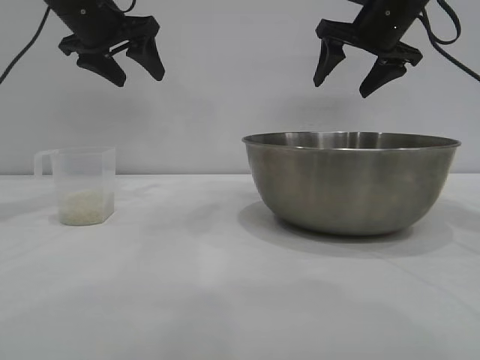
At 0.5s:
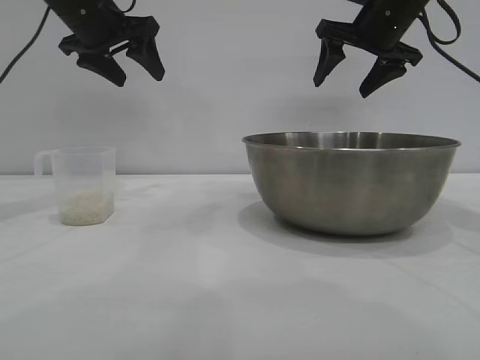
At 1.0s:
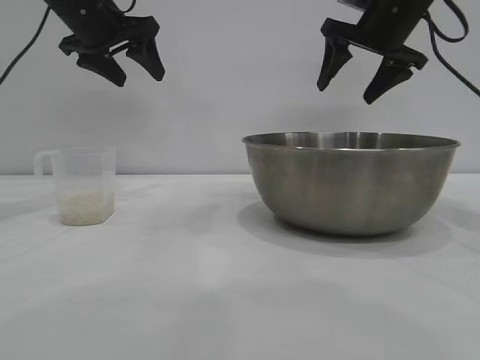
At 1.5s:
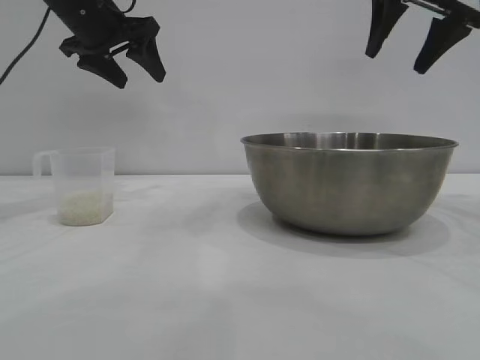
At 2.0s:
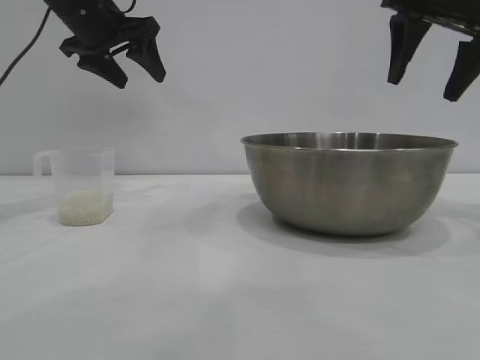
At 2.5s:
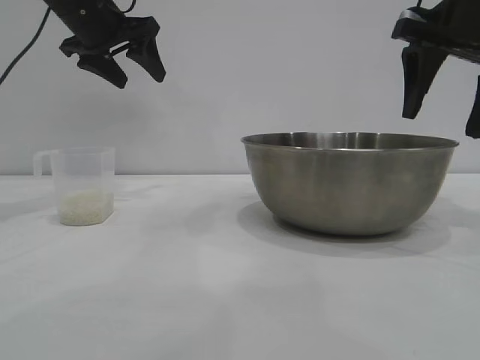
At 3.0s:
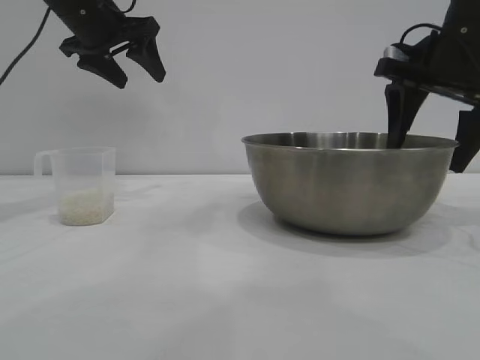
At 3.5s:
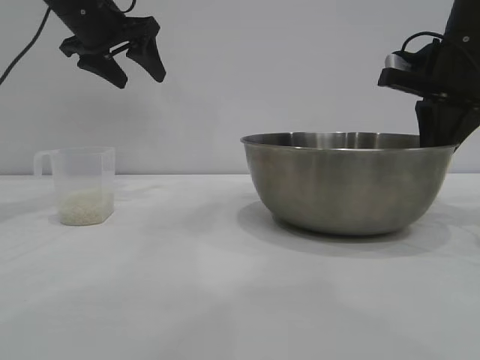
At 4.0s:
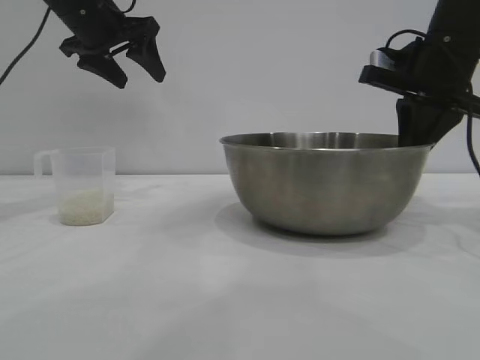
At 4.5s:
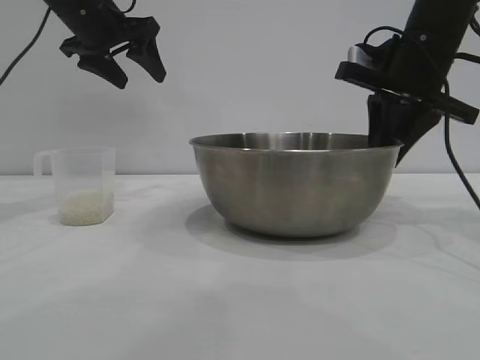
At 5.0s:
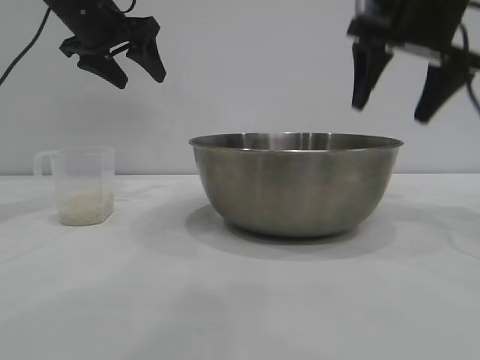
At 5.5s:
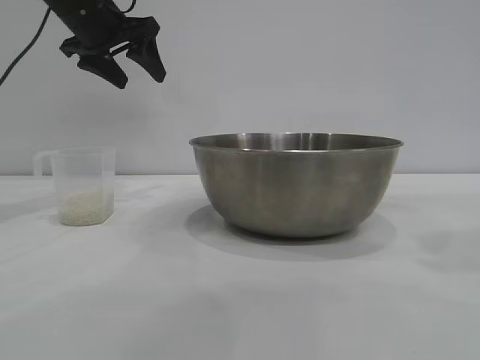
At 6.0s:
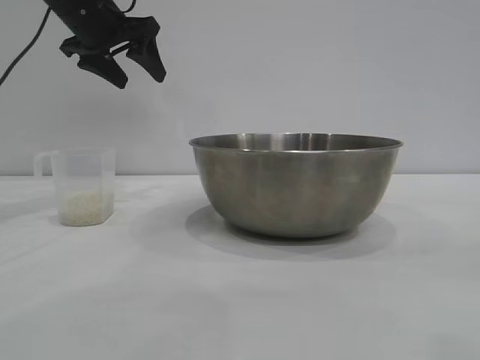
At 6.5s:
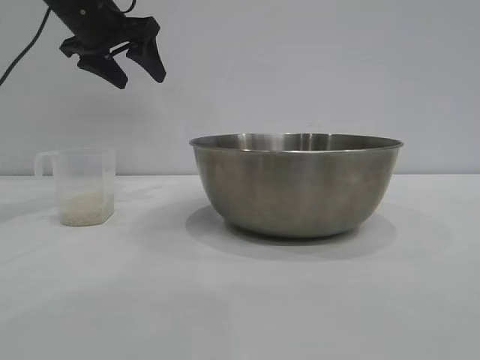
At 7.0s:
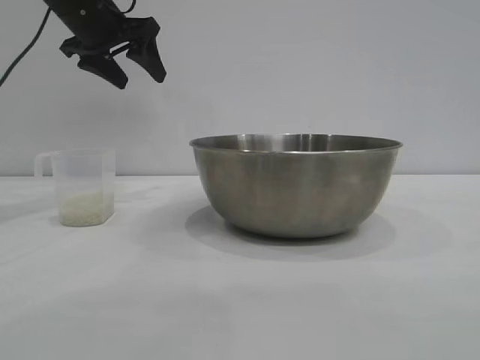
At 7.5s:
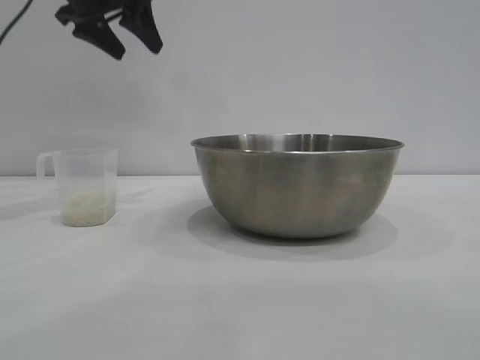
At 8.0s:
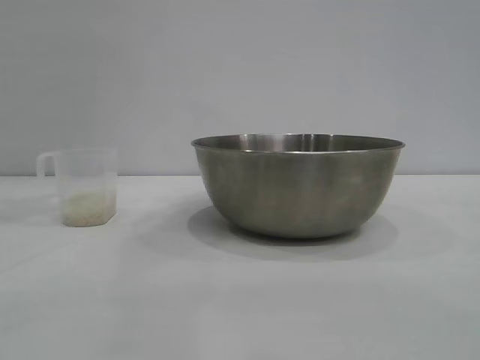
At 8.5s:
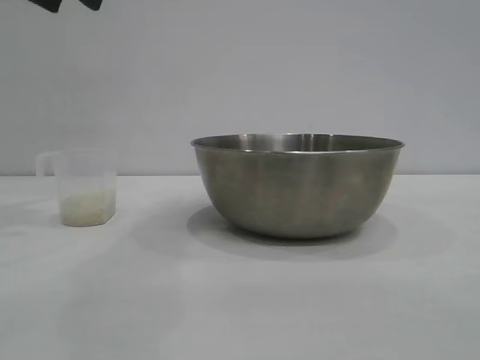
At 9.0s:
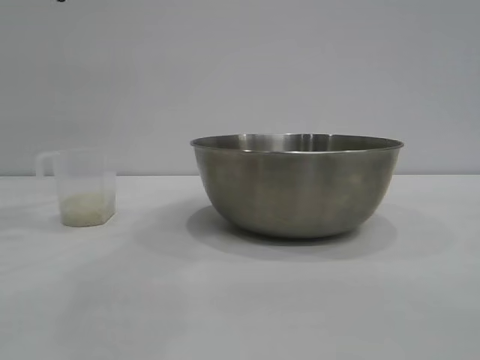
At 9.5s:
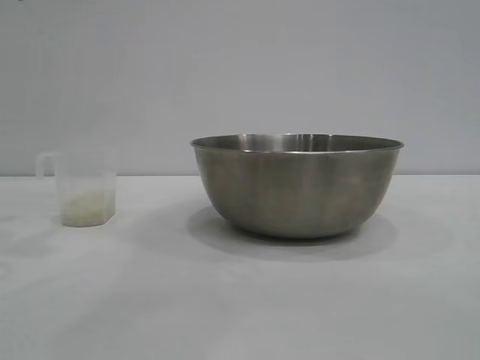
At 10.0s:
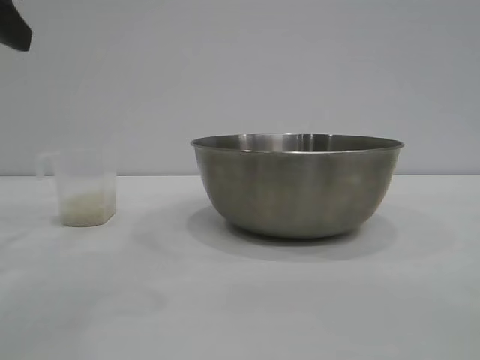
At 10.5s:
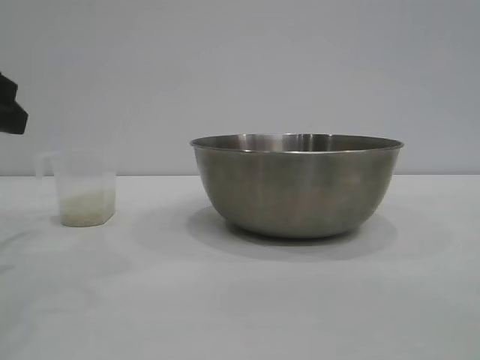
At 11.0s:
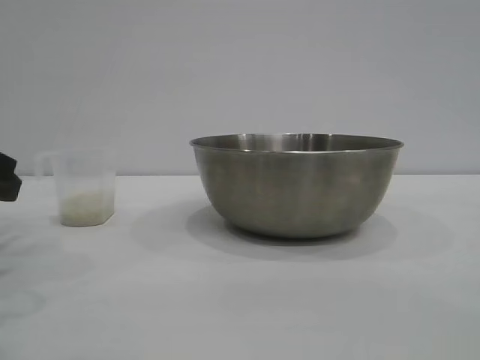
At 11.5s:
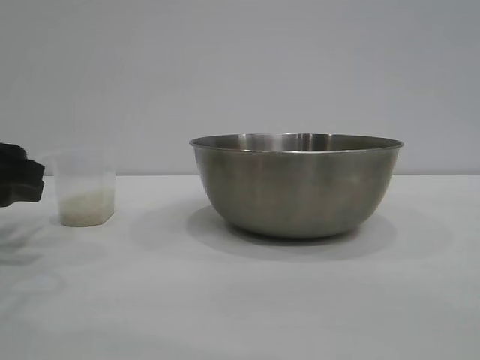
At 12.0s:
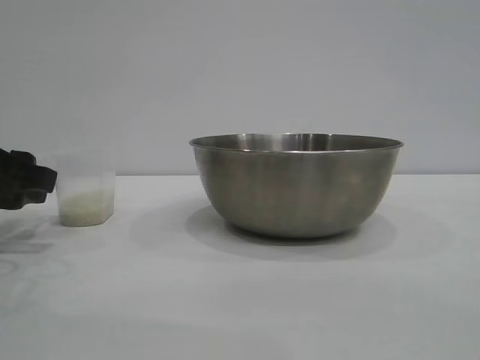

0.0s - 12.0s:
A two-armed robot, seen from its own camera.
Task of the whole recording: the right gripper grasp the rice container and place it in the center of the table, the left gripper grasp the rice scoop and pour the rice into the rice container.
Step, 0.0s - 5.0s: Move the bowl to the center of view with the right gripper.

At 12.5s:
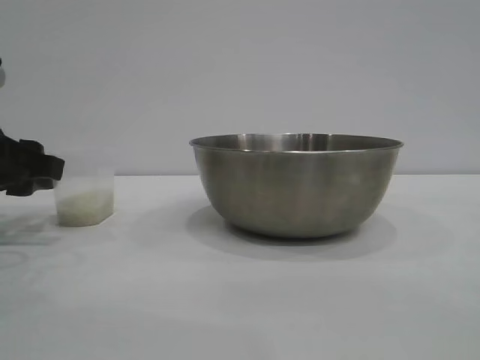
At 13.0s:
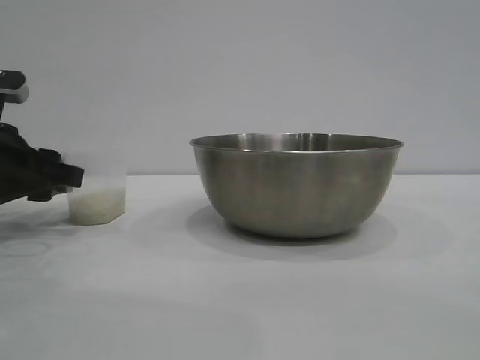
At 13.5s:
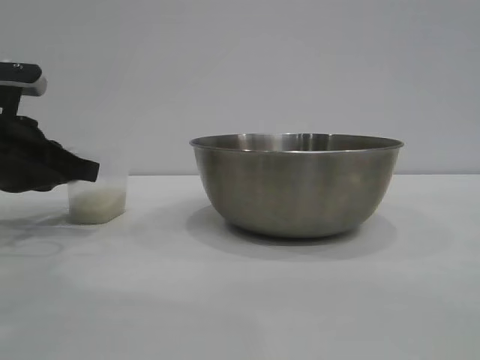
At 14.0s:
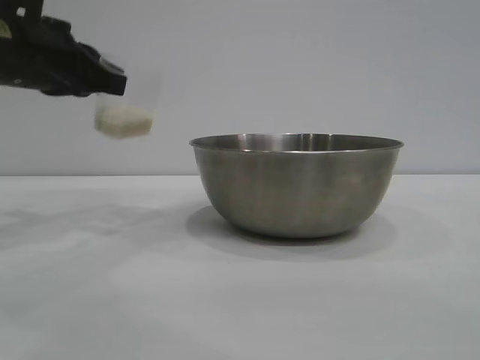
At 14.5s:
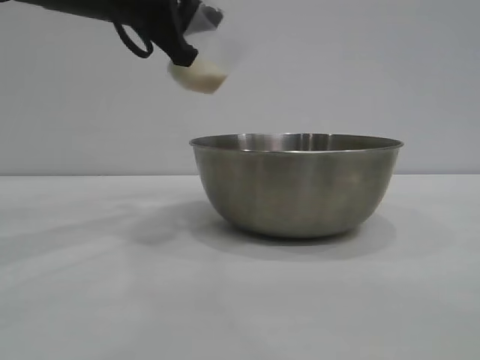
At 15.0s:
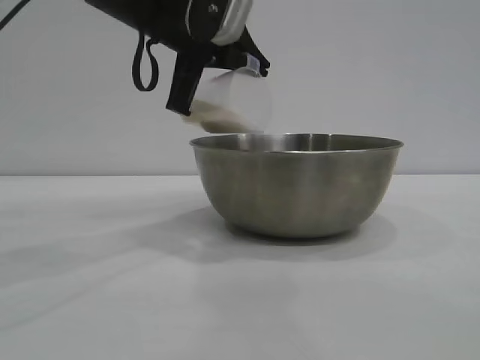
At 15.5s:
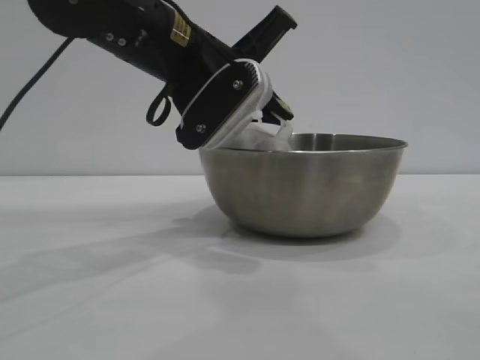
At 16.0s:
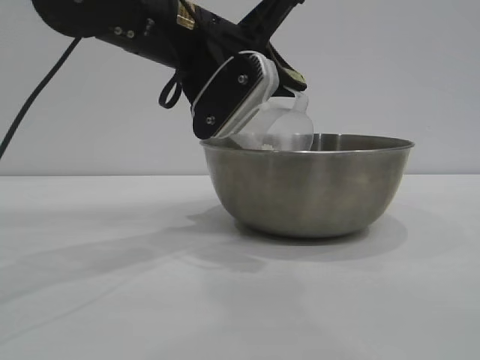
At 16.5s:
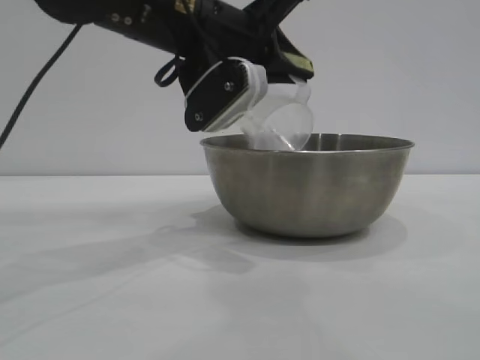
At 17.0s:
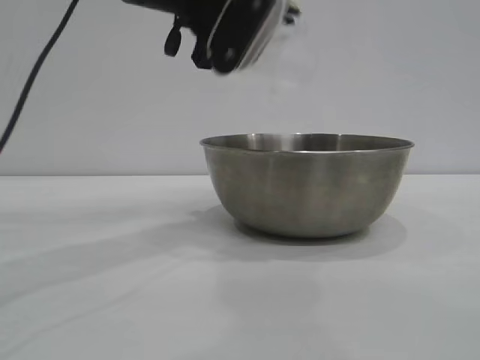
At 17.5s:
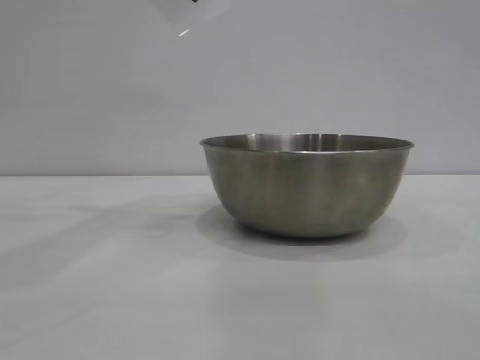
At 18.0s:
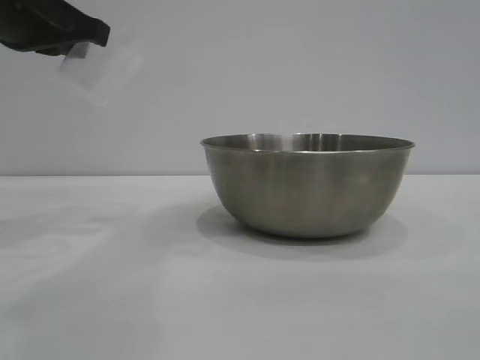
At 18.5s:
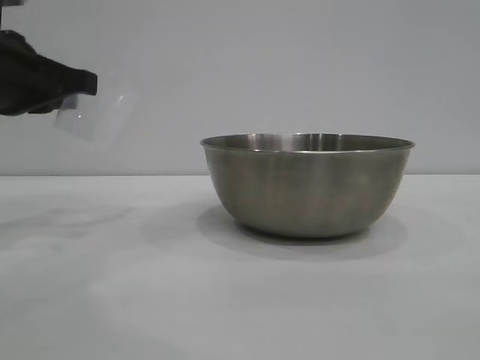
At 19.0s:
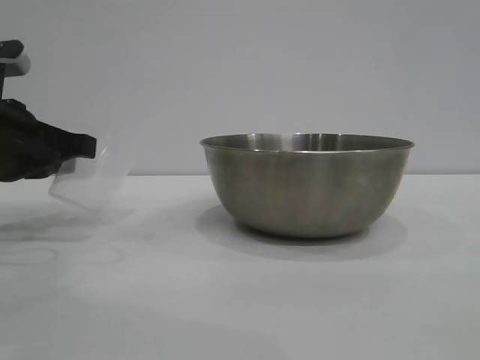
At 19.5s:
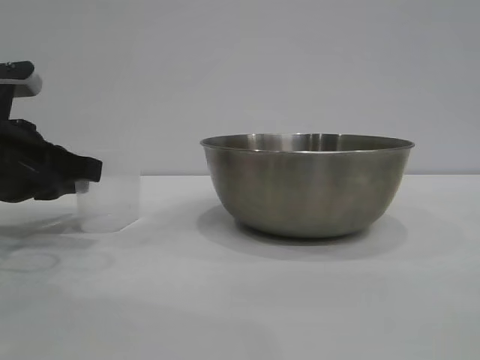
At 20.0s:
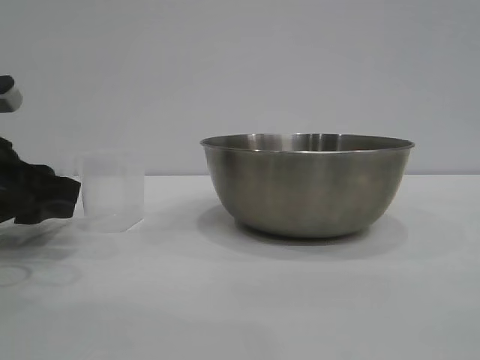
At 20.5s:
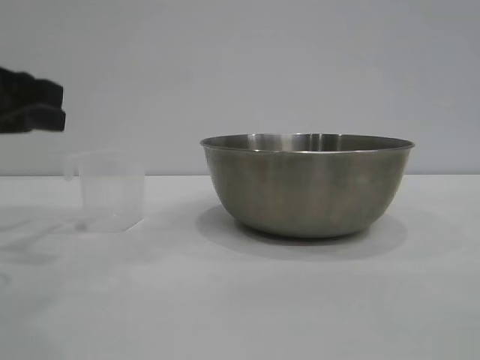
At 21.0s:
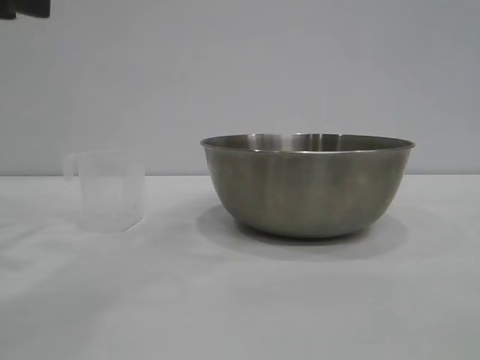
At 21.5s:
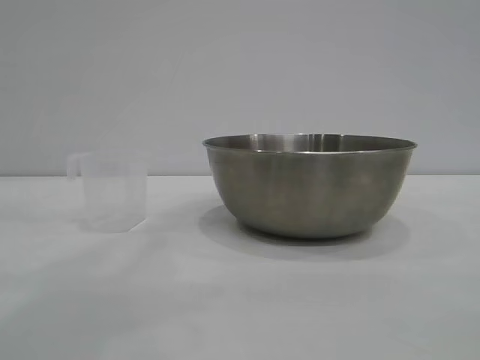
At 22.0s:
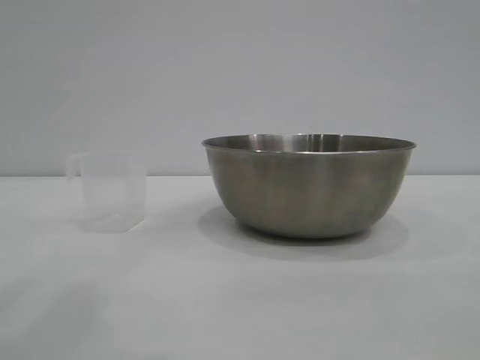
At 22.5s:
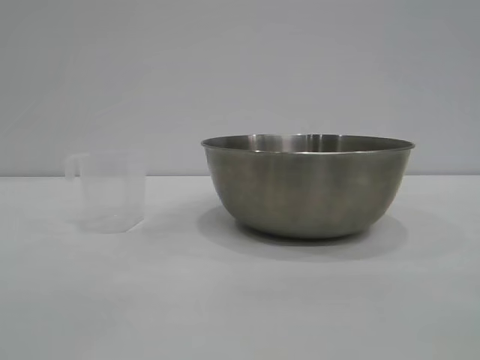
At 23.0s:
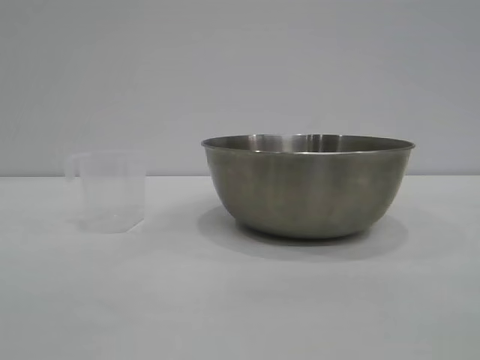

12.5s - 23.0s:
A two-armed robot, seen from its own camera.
Task of the whole recording: the right gripper grasp the rice container and place it in the center of the table, the left gripper grasp the rice scoop and pour the rice into the rice container.
Step, 14.0s - 17.0s: Pour the rice from the cup into the bowl with the left gripper.
Step, 17.5s - 20.5s: Place the cup on the table with the left gripper.

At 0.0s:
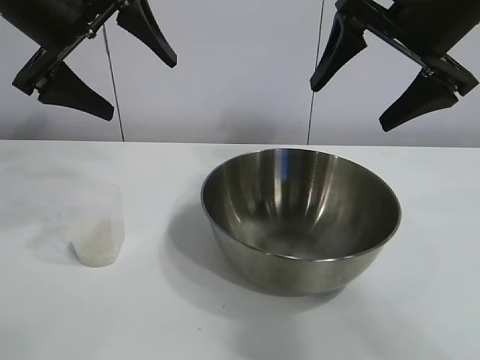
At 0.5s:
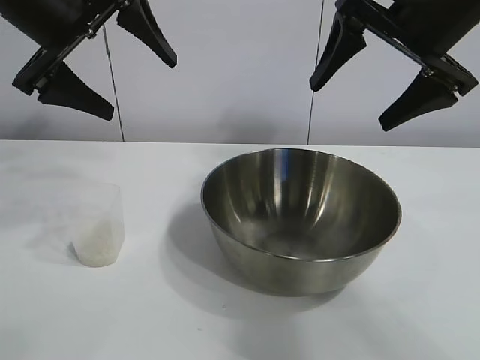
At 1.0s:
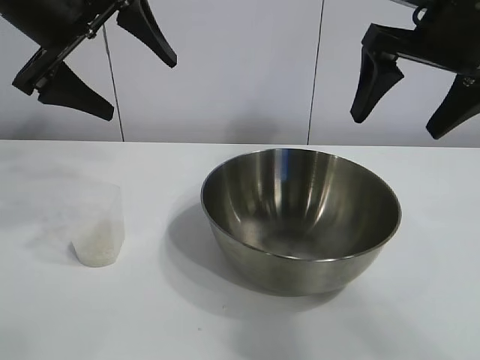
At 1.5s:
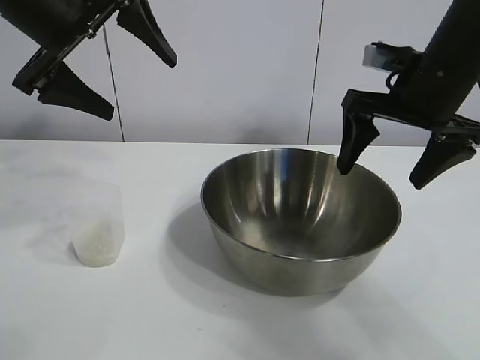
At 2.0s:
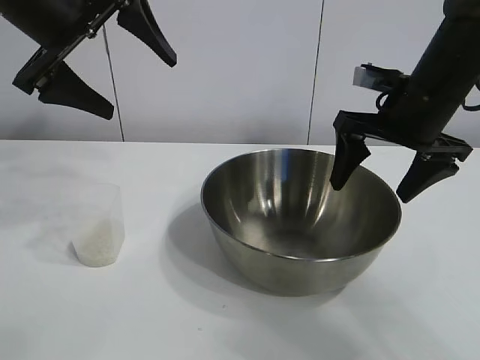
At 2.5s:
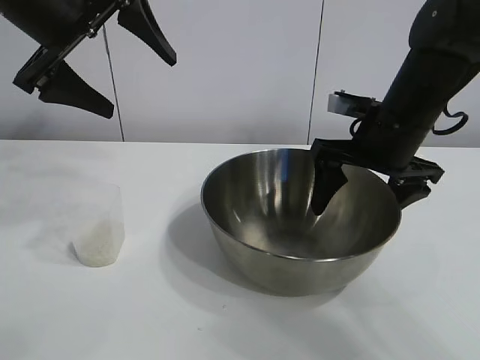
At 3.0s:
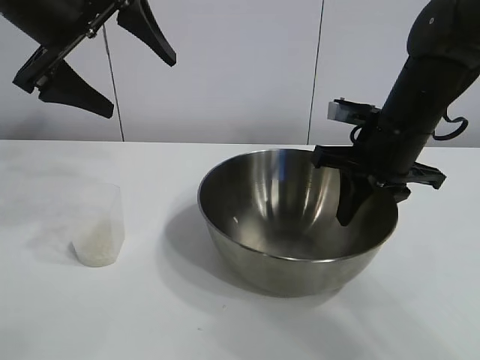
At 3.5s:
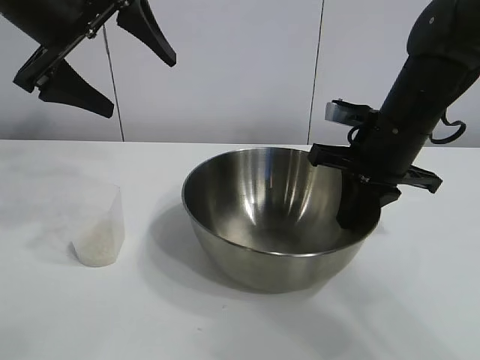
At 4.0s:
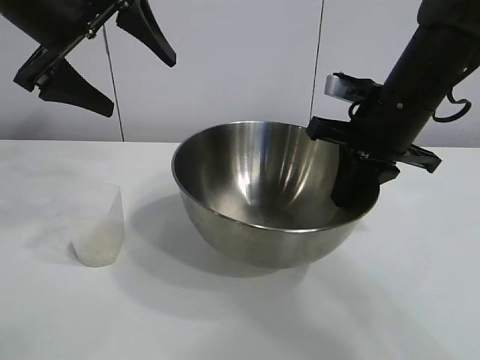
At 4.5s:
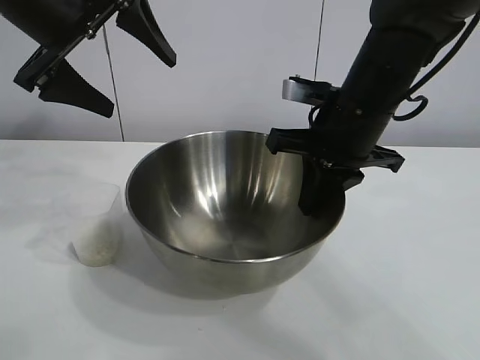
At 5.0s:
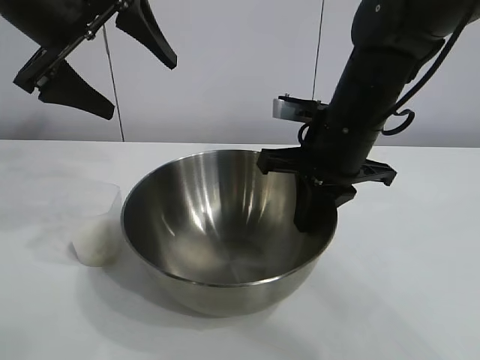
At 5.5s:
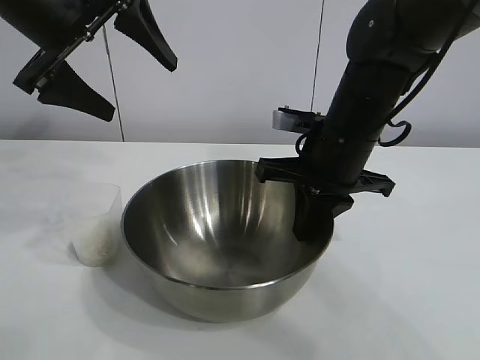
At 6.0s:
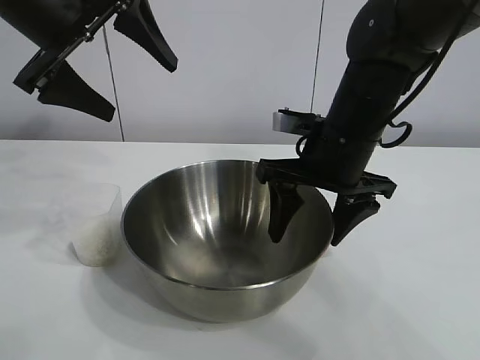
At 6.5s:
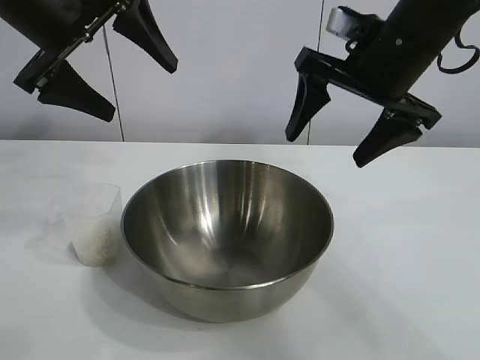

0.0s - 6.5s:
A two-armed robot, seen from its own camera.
Task of the whole recording: the right gripper grasp the rice container and place it in the center of the table, the left gripper grasp the rice scoop and pour the rice into the rice container.
Step, 1.0s - 6.0s: Move the bowl in the center of view with right gripper.
